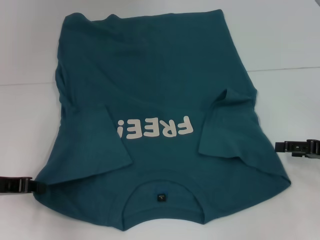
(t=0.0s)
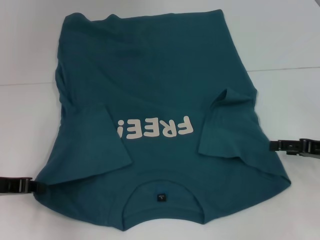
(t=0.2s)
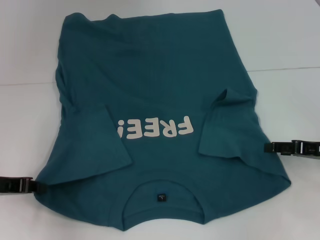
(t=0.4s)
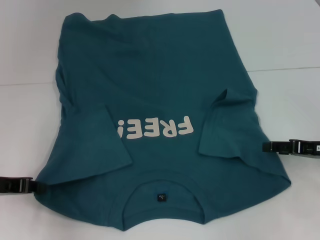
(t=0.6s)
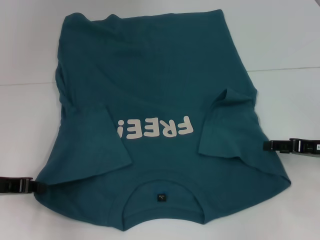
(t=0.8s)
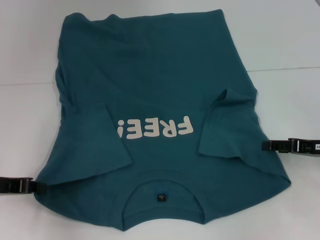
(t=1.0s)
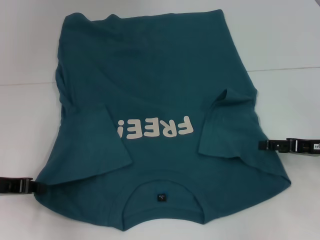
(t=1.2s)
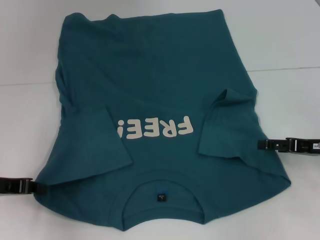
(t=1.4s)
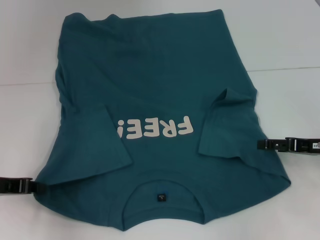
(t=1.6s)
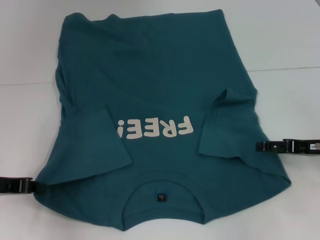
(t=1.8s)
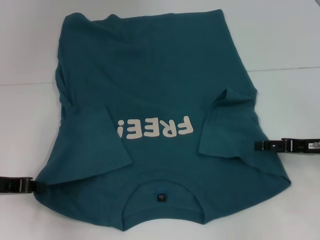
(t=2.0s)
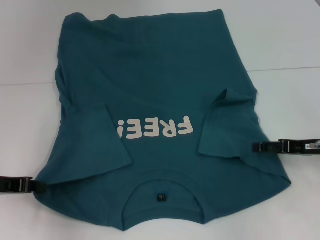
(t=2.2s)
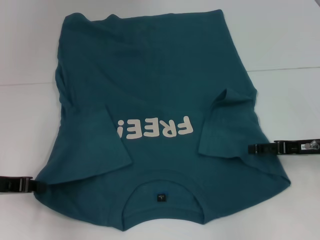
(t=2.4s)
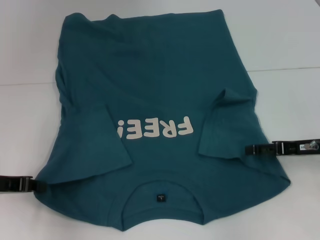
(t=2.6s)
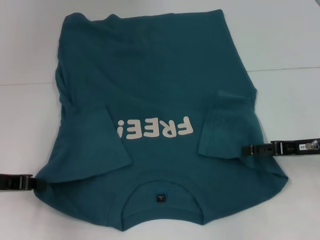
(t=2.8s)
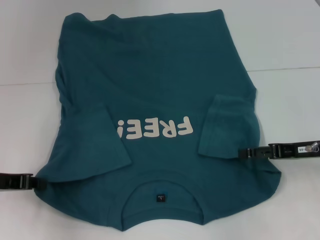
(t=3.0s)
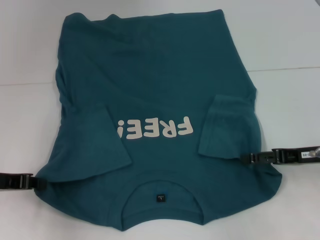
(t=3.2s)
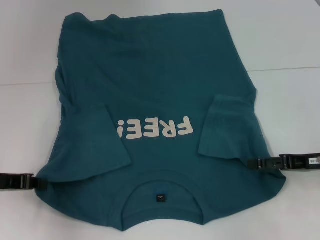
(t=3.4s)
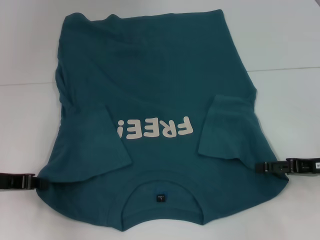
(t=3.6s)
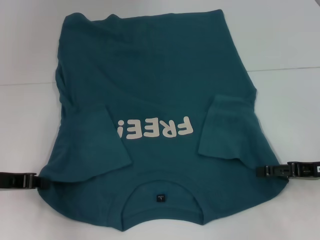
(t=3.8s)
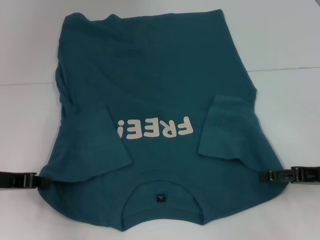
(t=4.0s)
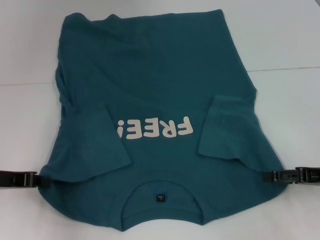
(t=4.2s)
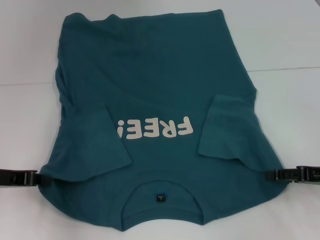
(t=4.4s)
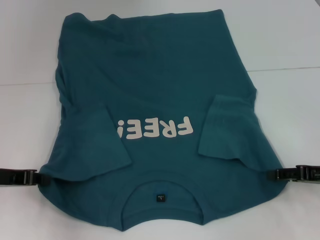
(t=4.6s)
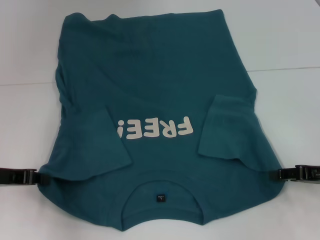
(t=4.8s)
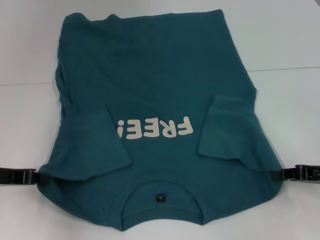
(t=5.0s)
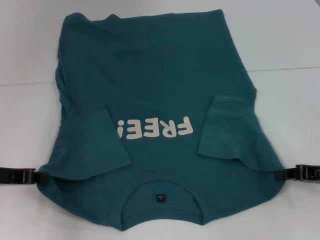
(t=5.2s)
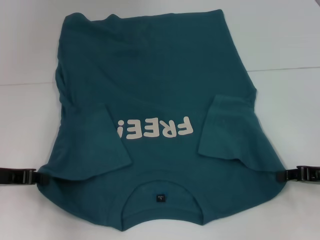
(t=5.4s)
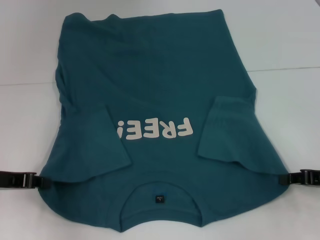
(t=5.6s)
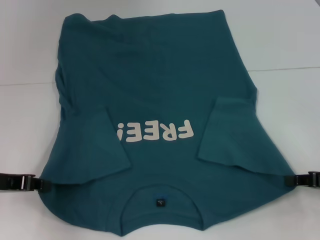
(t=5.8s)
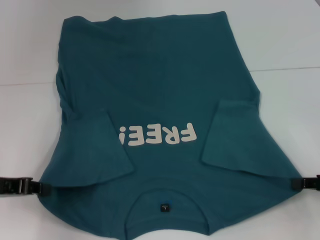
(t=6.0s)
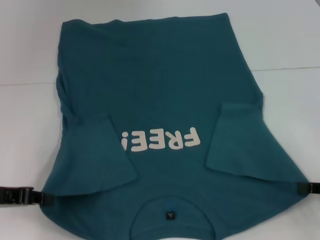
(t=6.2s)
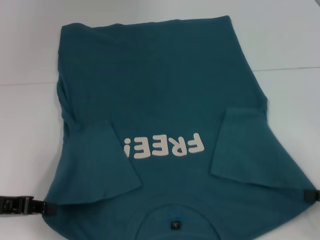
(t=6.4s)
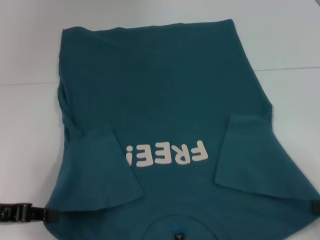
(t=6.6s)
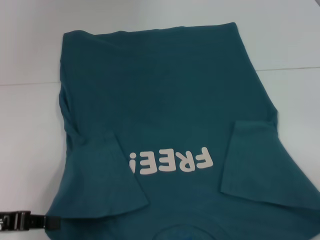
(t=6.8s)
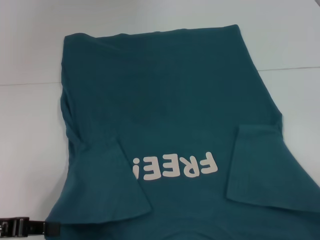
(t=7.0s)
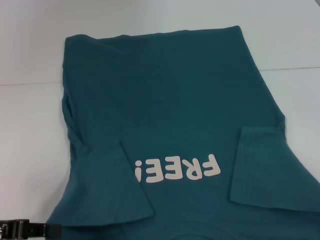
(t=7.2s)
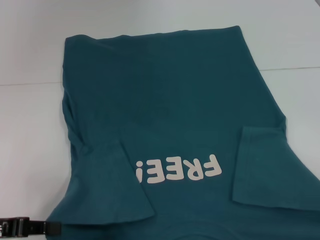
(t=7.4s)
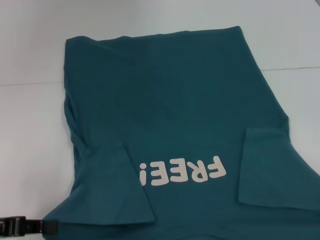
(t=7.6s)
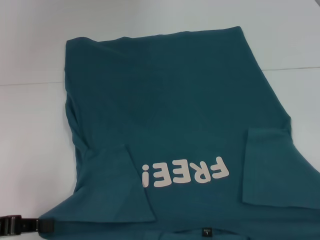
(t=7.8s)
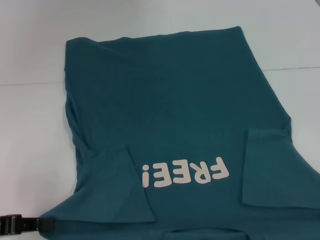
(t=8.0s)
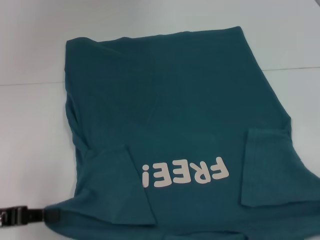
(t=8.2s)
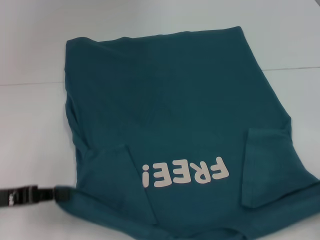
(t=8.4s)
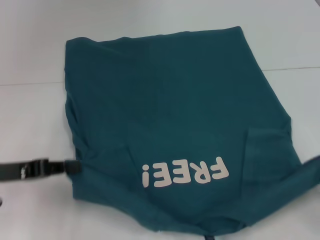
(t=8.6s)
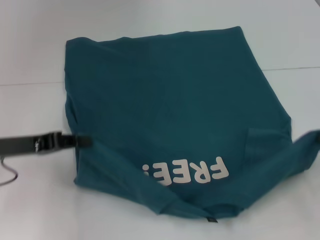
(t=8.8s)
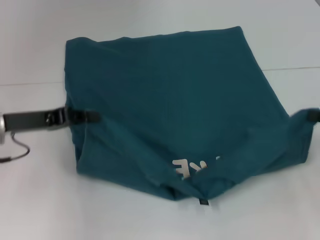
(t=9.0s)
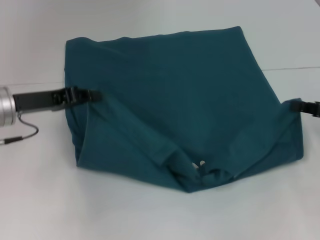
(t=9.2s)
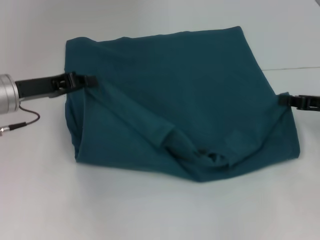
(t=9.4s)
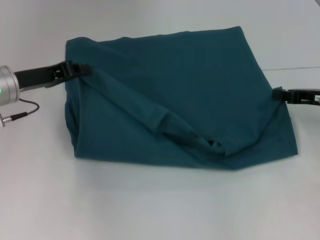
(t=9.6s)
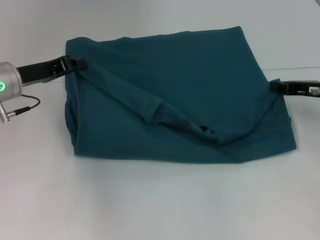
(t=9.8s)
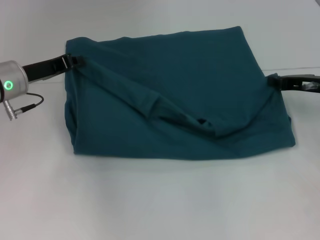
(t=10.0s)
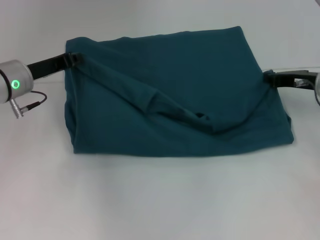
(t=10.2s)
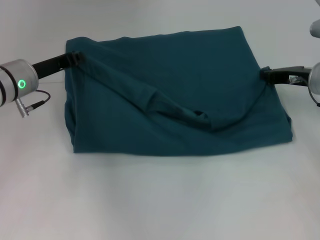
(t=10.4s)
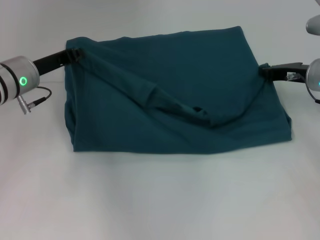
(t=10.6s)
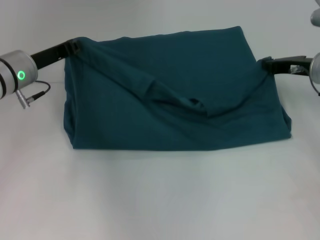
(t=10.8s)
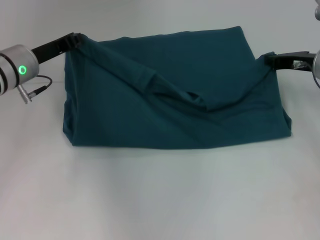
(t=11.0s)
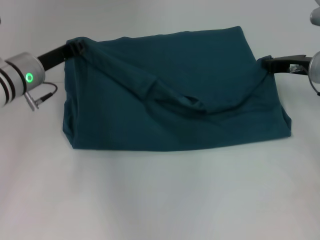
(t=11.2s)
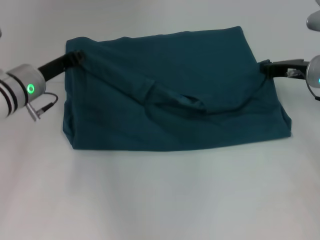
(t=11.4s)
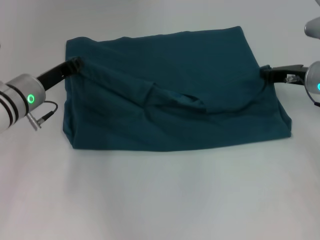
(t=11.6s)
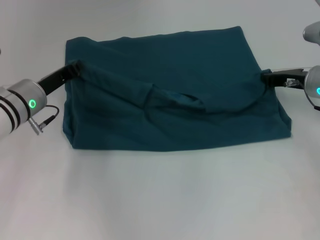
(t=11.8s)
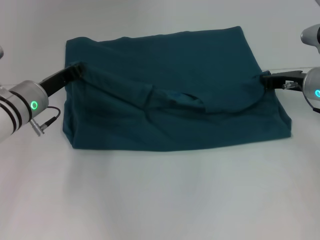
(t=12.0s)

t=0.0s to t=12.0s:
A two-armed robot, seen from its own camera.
Step, t=0.0s to t=5.0s: Grab the bottom right corner with your right hand.
t=0.0s to t=3.0s: The grippers move only a little.
t=3.0s to t=4.4s: The right gripper changes place by approximately 5 cm.
t=4.4s to t=6.0s: The right gripper closes up.
t=6.0s to t=7.6s: The left gripper moves backward, approximately 5 cm, while the right gripper moves backward and to the right, some 10 cm.
t=7.6s to t=9.0s: The right gripper moves forward, some 15 cm. Meanwhile the left gripper moves forward and to the right, some 15 cm.
t=9.0s to t=10.4s: The right gripper goes about 15 cm forward and to the left. The left gripper heads forward, covering approximately 10 cm.
t=10.4s to t=12.0s: The grippers move only a little.

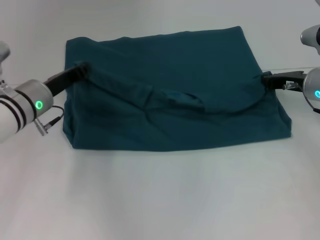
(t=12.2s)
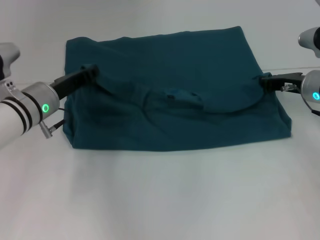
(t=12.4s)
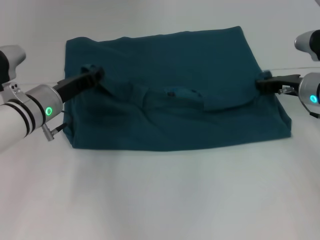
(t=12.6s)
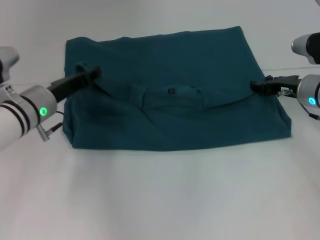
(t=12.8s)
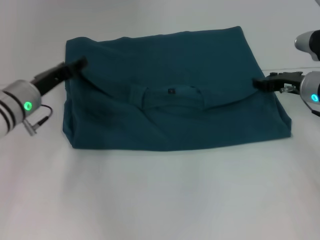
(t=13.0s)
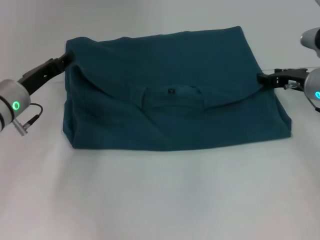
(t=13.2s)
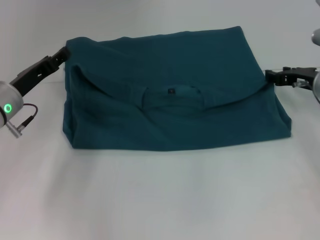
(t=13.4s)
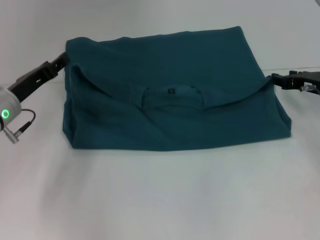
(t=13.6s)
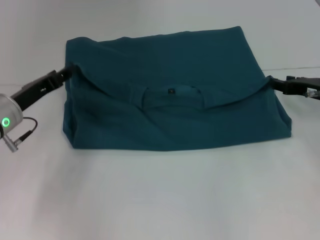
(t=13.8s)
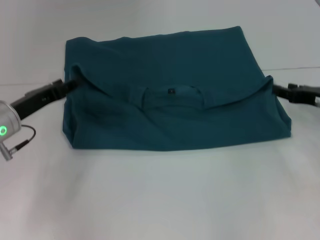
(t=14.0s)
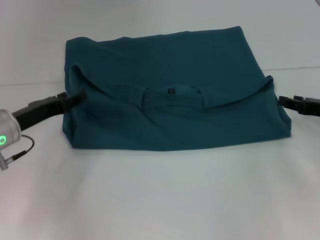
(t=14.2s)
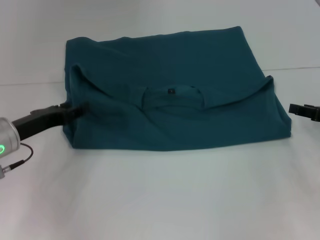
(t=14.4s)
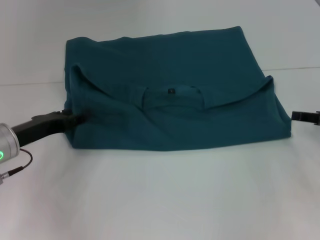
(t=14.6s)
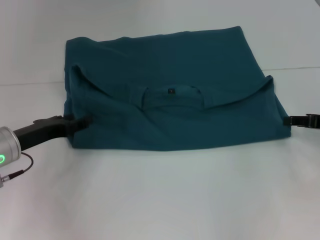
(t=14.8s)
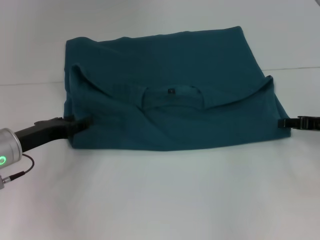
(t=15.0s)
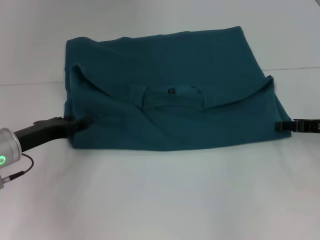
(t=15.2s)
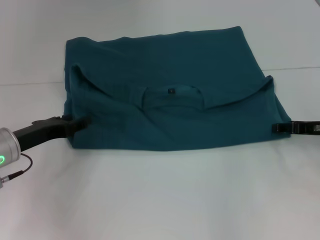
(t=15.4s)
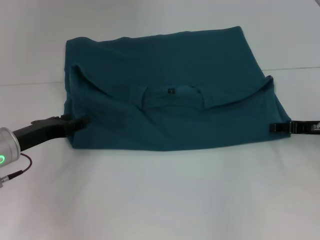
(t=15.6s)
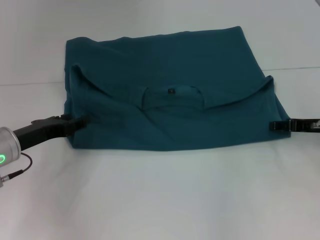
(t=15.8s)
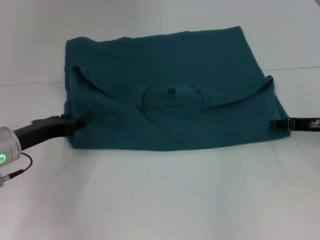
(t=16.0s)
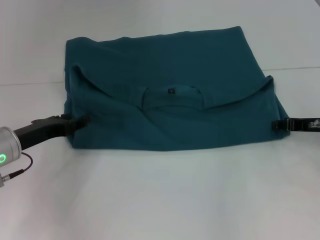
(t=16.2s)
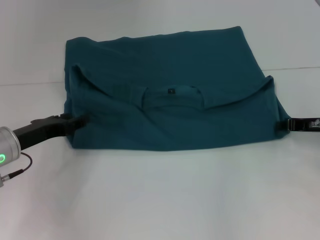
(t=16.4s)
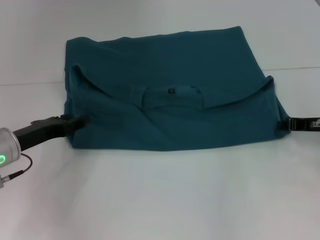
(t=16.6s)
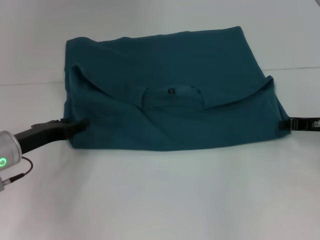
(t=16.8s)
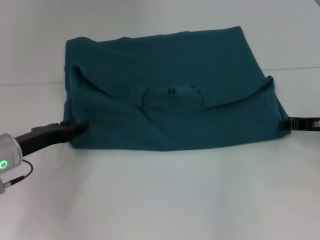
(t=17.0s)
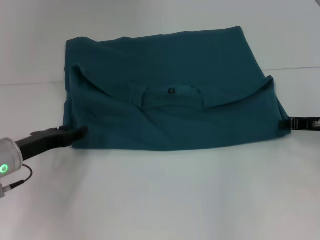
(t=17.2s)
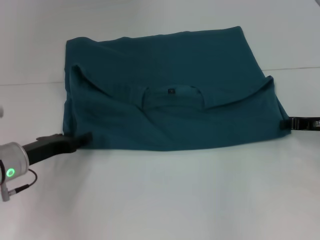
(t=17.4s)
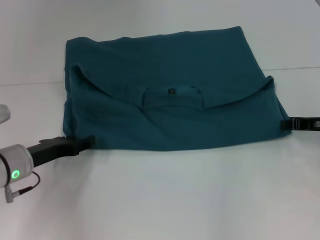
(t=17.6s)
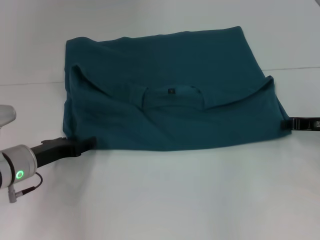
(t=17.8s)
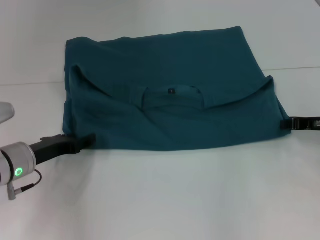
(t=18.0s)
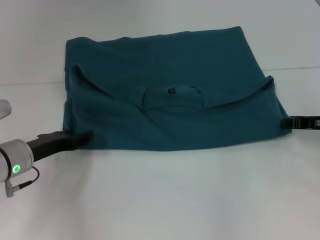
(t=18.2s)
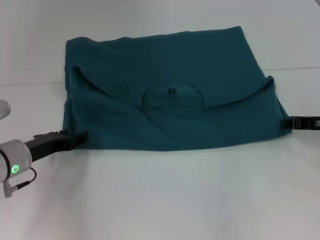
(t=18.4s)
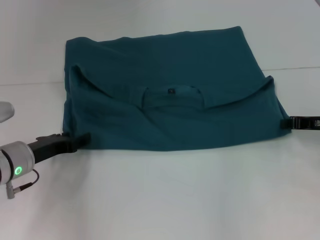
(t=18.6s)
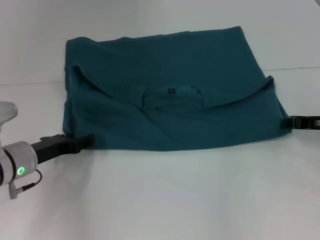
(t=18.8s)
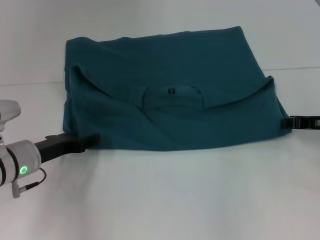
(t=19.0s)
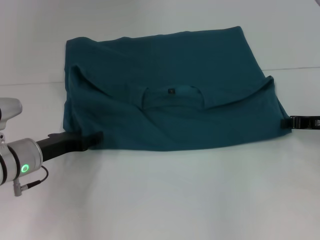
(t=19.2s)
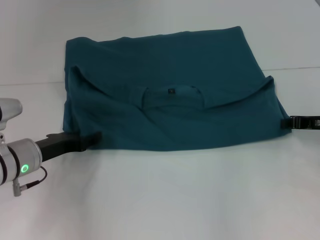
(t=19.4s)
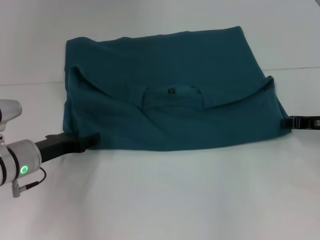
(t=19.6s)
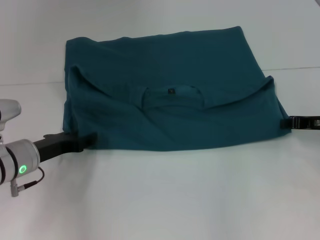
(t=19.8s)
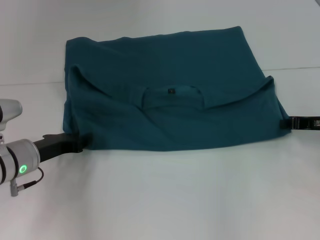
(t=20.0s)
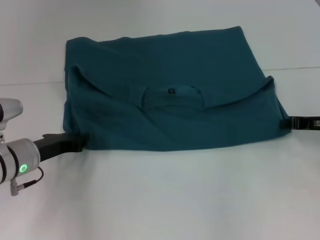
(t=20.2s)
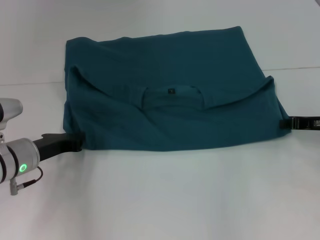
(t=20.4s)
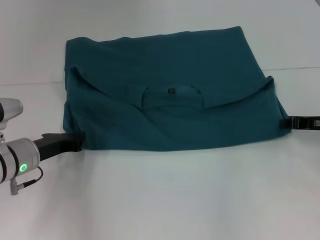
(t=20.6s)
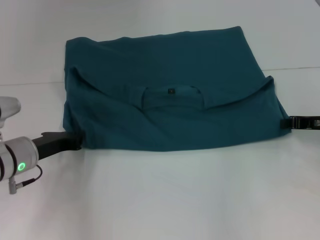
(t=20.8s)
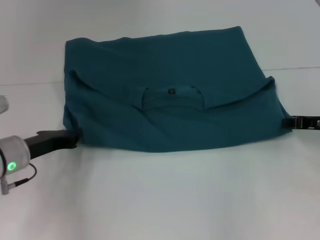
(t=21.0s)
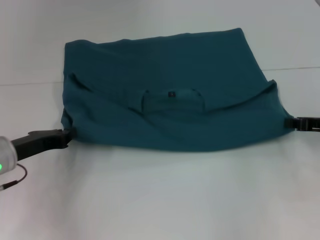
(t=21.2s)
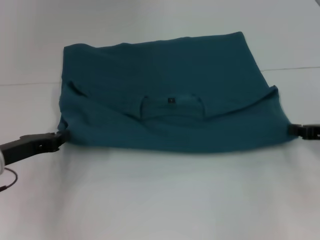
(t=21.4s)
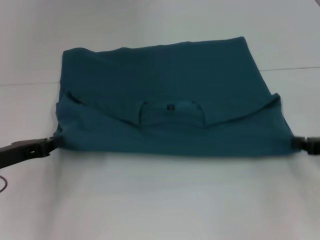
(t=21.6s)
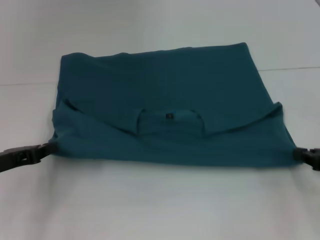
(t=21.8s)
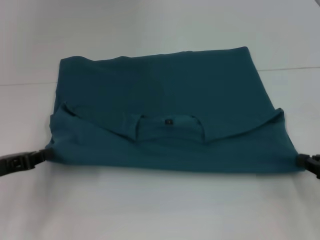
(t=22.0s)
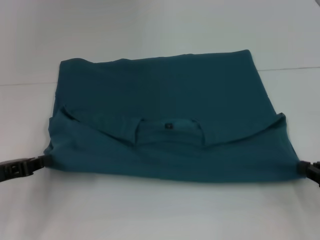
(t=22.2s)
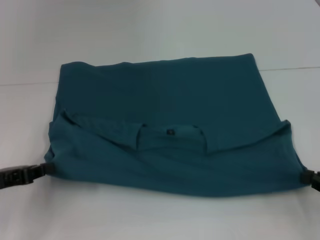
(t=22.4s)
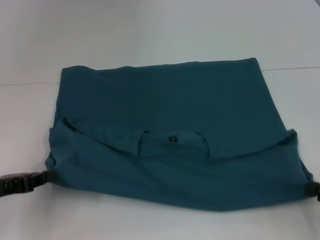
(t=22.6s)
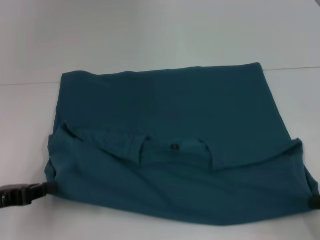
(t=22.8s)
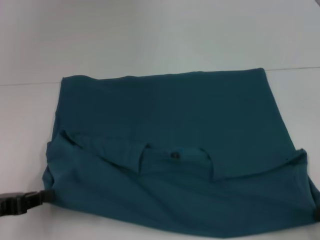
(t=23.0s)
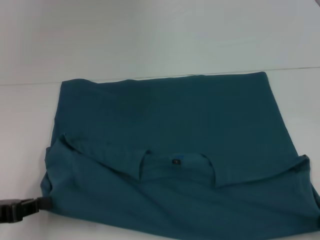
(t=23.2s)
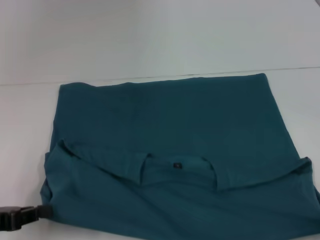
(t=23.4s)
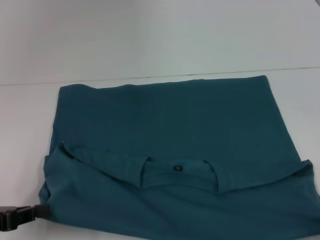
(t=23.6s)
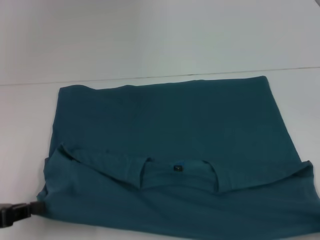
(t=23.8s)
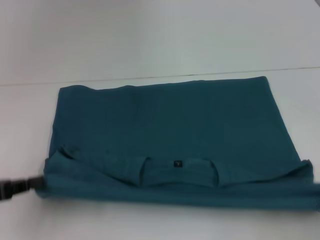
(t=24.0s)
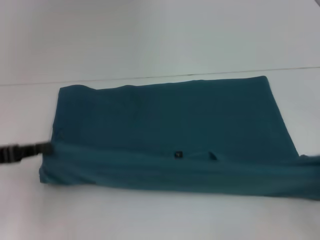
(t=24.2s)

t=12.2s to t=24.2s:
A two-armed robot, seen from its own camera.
Step, t=12.8s to t=23.4s: Pull the clothes with your left hand.
Step, t=12.8s to t=23.4s: Pull the clothes with your right hand.
t=12.2s to t=13.8s: The left gripper ends up roughly 5 cm from where it was, and opens up, while the right gripper opens up.
t=16.6s to t=18.2s: The grippers make only small movements.
t=18.2s to t=19.8s: Both grippers stay about where they are.
t=19.8s to t=21.2s: The left gripper closes.
t=21.2s to t=22.6s: The left gripper travels backward and to the left by approximately 10 cm. Meanwhile the right gripper is displaced backward by about 15 cm.
